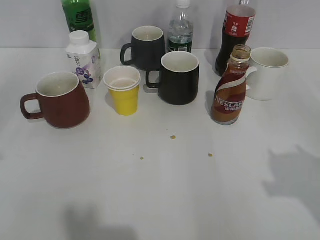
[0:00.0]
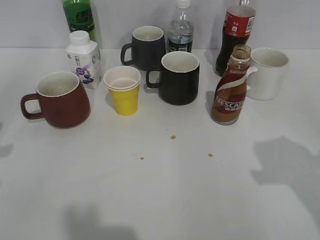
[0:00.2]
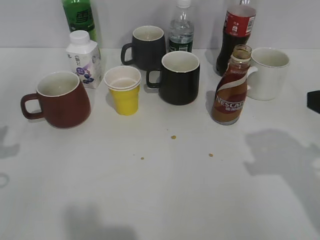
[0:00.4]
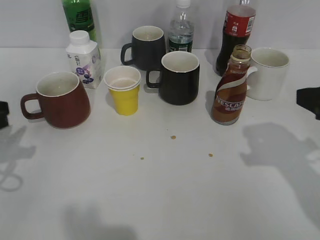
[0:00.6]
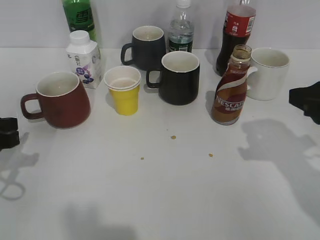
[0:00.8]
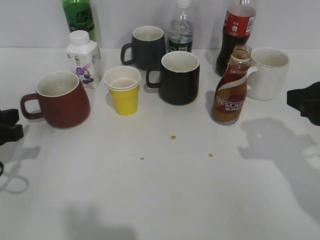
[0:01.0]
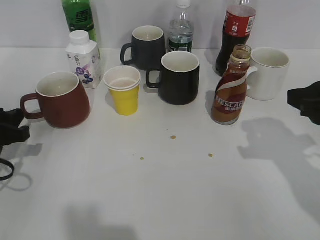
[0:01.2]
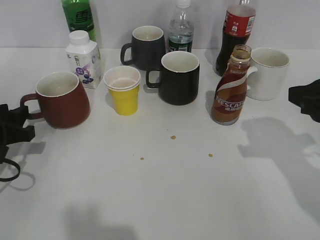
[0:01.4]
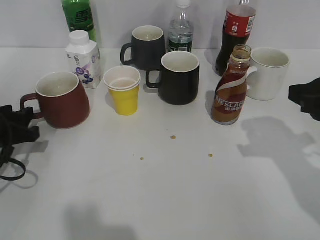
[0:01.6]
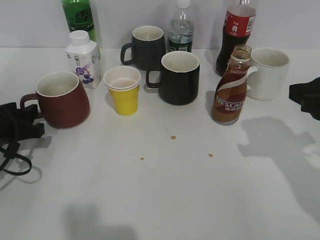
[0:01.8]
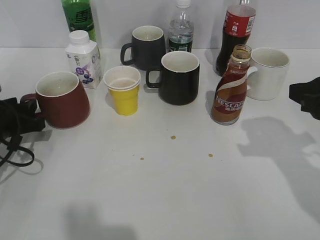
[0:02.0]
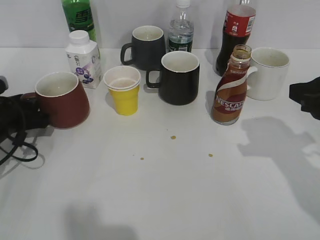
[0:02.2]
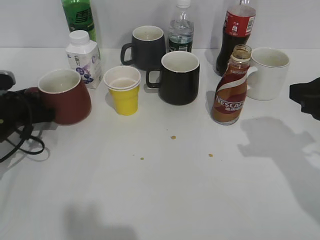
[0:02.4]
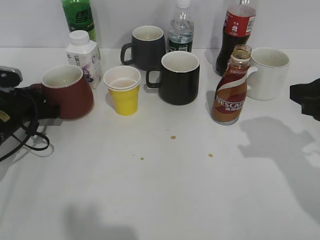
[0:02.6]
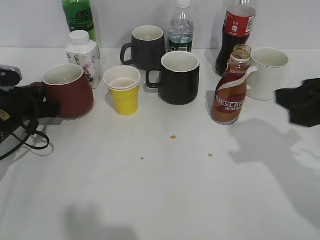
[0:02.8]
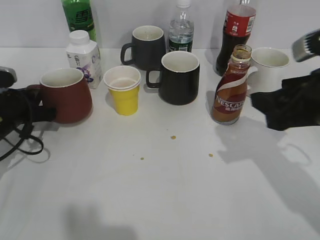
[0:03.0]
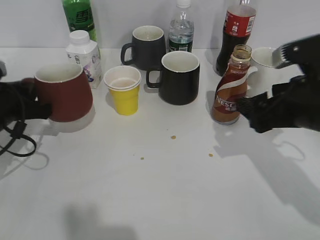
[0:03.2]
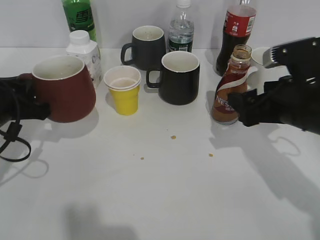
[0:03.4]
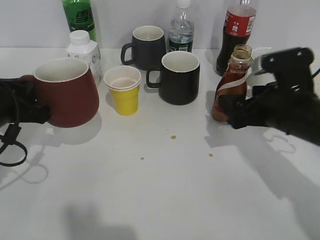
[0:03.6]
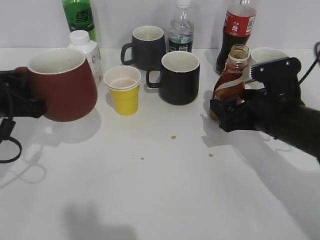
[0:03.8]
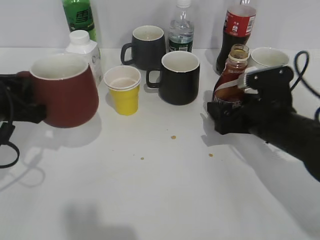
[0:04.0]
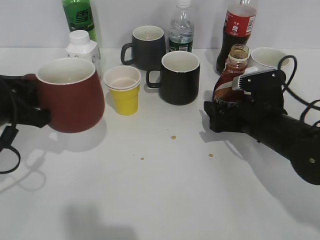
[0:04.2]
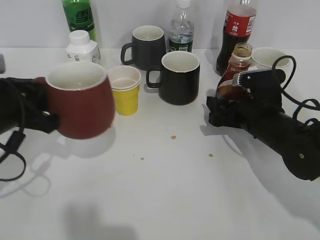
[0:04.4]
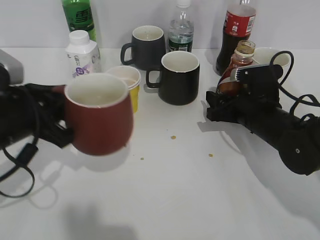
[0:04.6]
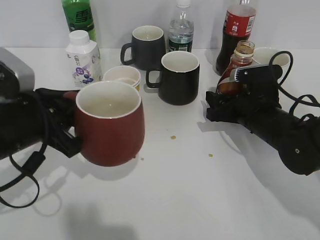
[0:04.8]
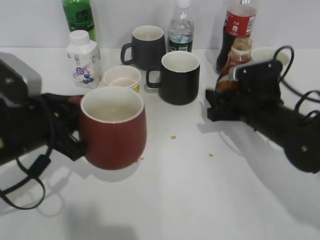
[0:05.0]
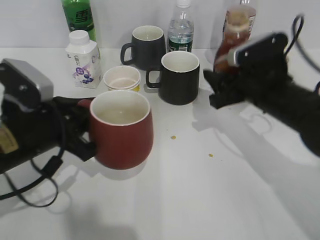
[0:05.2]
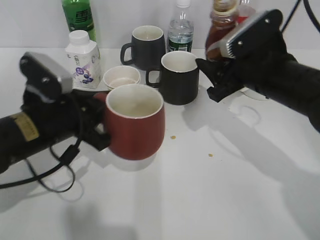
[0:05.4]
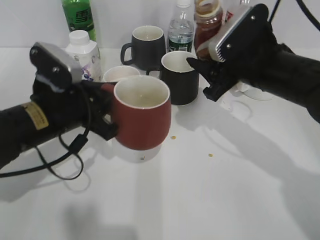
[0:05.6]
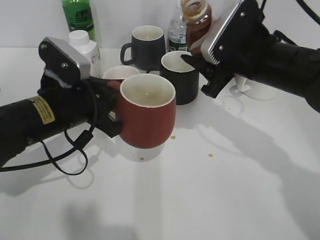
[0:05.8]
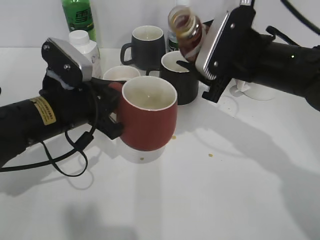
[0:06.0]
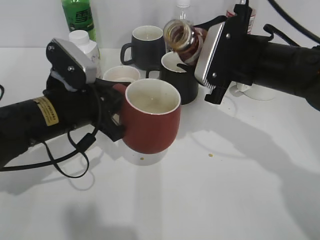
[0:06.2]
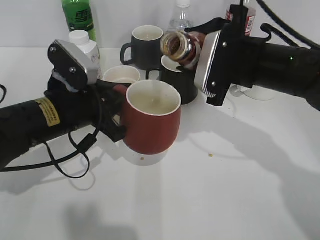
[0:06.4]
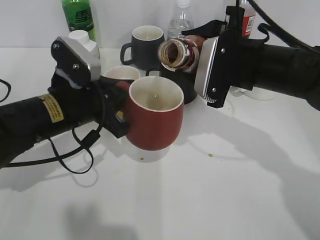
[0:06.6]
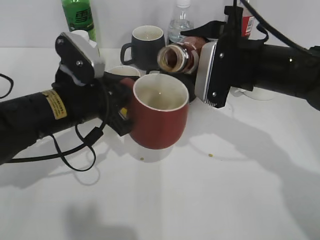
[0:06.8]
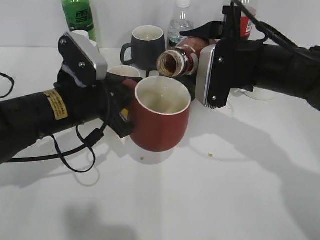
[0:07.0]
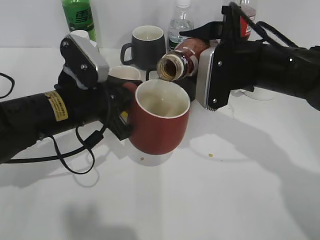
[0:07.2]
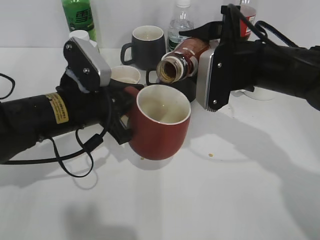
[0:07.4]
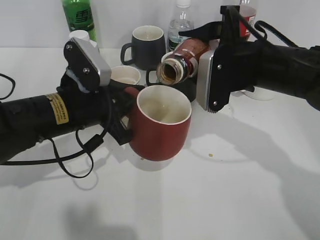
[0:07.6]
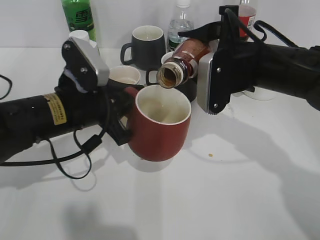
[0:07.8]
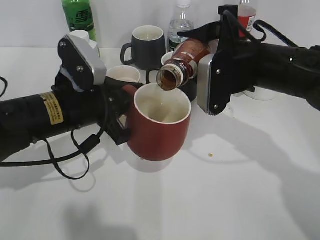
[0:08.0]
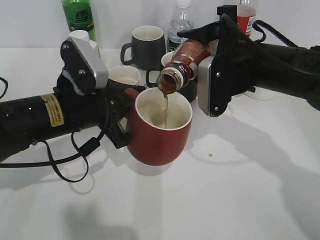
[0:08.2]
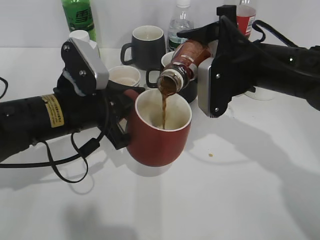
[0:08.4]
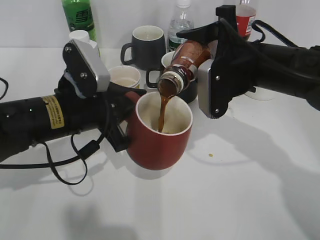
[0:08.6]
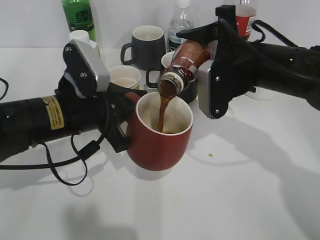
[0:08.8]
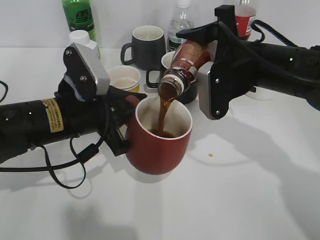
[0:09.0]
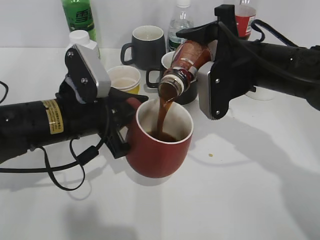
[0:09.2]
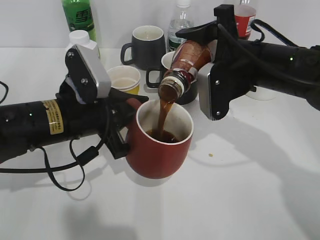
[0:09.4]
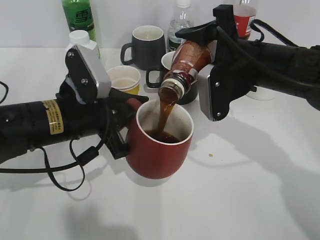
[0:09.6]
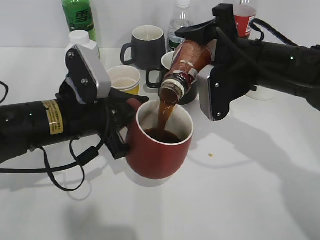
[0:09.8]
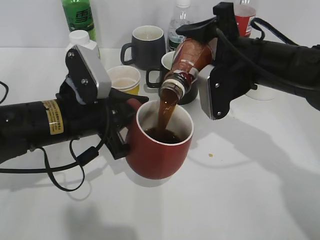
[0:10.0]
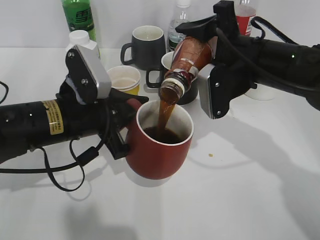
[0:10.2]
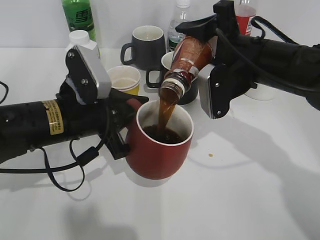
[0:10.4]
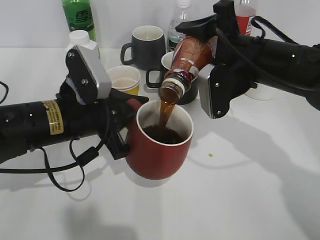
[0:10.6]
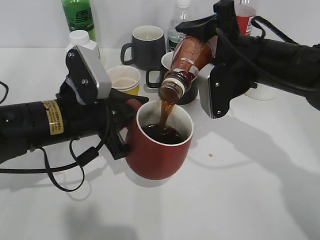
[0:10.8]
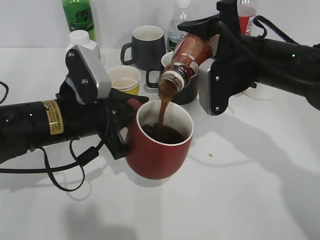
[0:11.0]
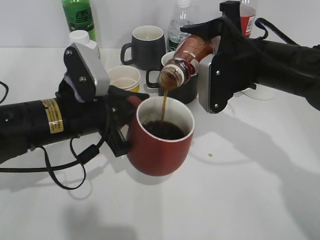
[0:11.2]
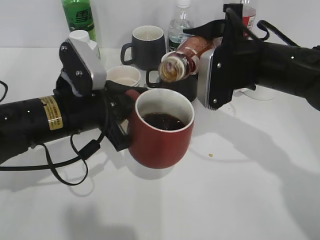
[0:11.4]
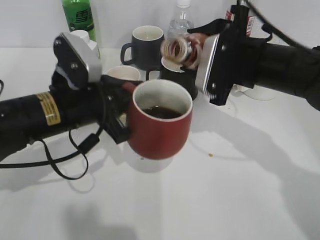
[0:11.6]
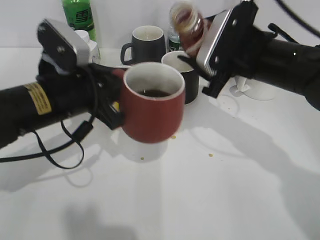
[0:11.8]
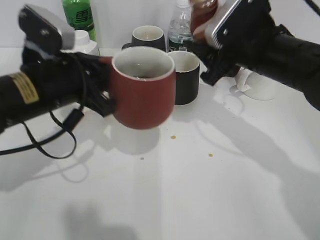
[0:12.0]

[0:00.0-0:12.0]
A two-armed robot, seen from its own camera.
Step, 0.0 to 2.6 s: Grasp the red cup with left gripper.
Step, 2.8 to 4.6 s: Grasp the bottle with coffee with right gripper.
Step, 4.8 to 11.6 s: Pour the coffee from bottle to cup with right gripper.
0.0 to 1.6 s: The left gripper heads downward and forward, covering some 20 cm, and opens its fingers, while the right gripper heads forward and downward, covering some 10 cm.
1.6 to 3.0 s: The right gripper opens its fingers; the left gripper travels forward by roughly 5 cm, and closes up.
3.0 to 4.4 s: The right gripper is displaced downward and forward by some 15 cm. Meanwhile the left gripper travels backward and upward by about 10 cm.
4.4 to 6.0 s: The right gripper goes about 10 cm upward. Meanwhile the left gripper shifts some 10 cm to the right.
7.6 to 9.0 s: There are only small adjustments of the grippers.
9.0 to 10.4 s: The grippers stay close to where they were, moving slightly.
10.4 to 12.0 s: The left gripper shifts by roughly 5 cm.

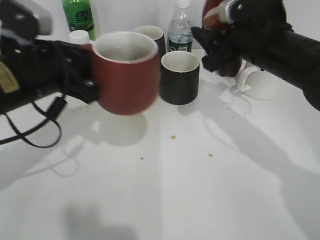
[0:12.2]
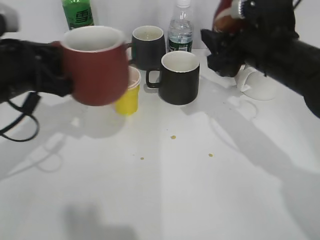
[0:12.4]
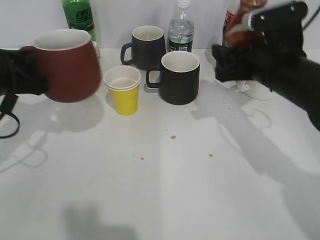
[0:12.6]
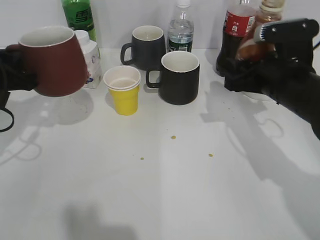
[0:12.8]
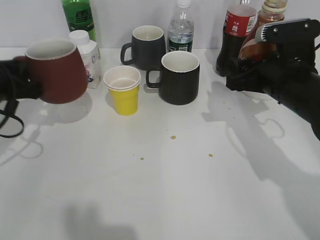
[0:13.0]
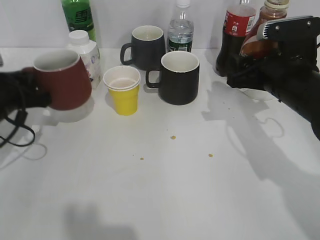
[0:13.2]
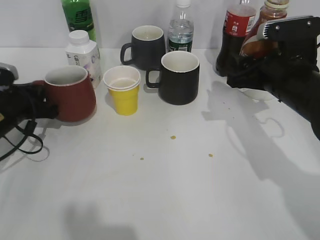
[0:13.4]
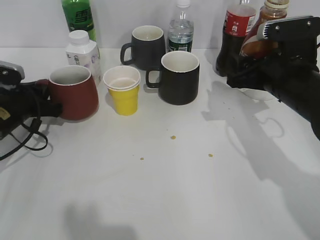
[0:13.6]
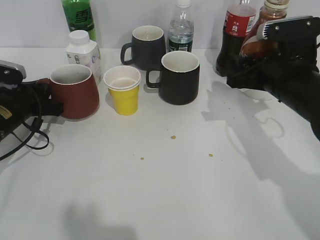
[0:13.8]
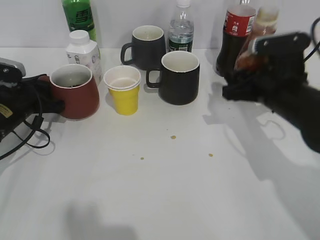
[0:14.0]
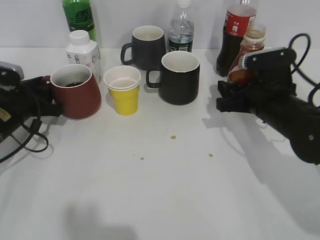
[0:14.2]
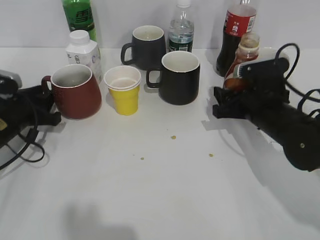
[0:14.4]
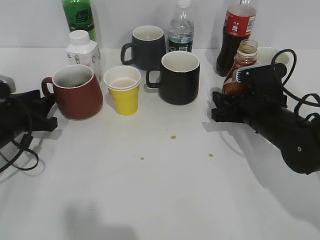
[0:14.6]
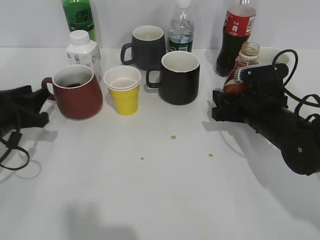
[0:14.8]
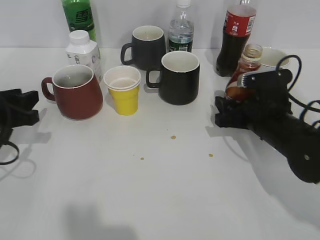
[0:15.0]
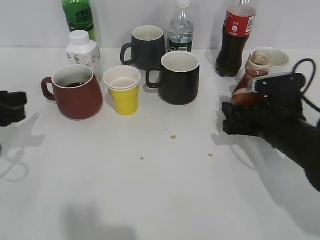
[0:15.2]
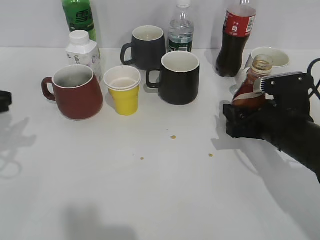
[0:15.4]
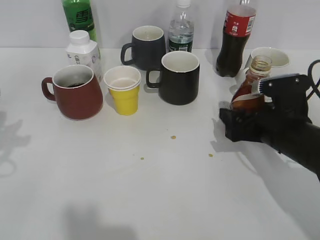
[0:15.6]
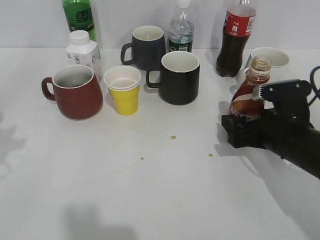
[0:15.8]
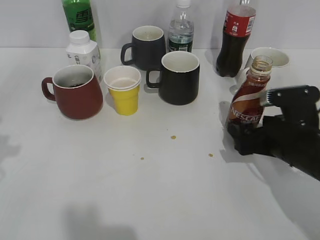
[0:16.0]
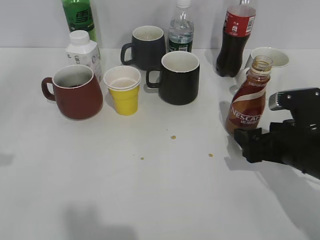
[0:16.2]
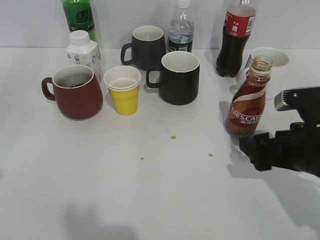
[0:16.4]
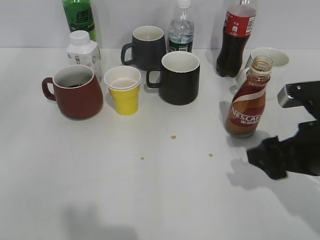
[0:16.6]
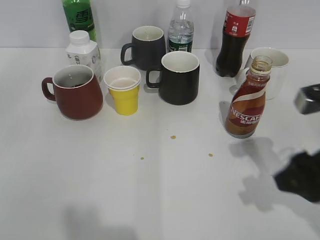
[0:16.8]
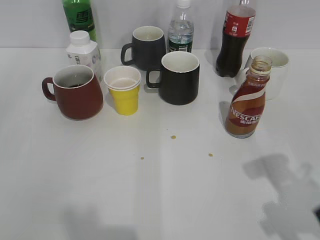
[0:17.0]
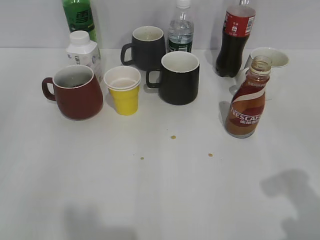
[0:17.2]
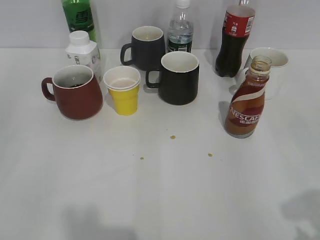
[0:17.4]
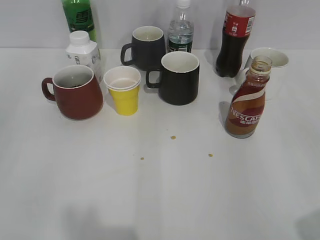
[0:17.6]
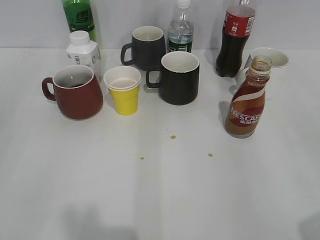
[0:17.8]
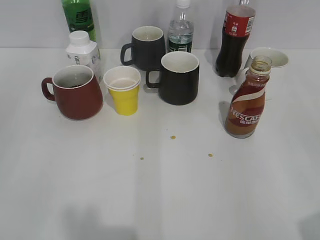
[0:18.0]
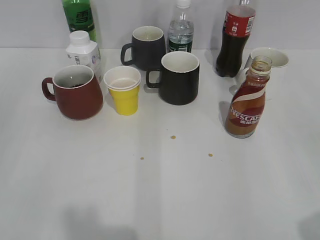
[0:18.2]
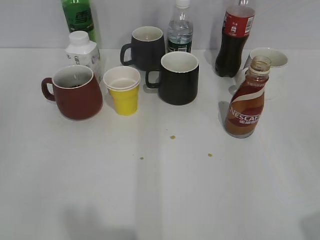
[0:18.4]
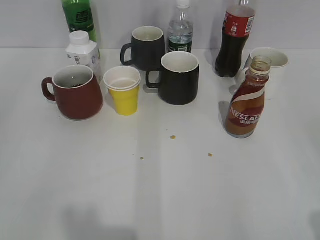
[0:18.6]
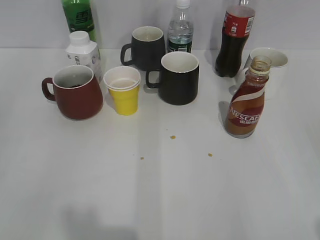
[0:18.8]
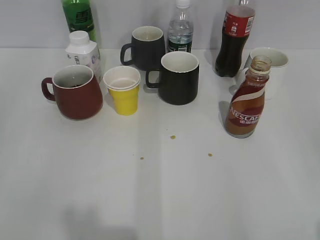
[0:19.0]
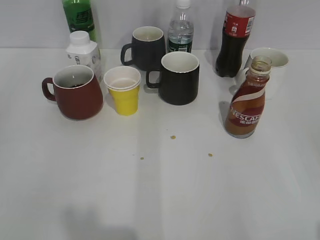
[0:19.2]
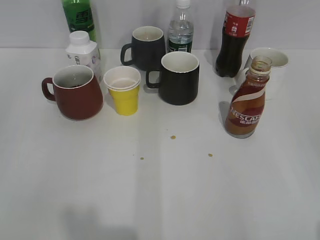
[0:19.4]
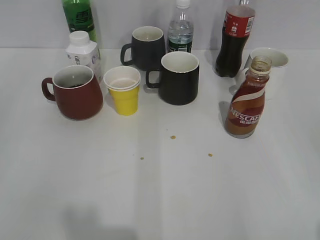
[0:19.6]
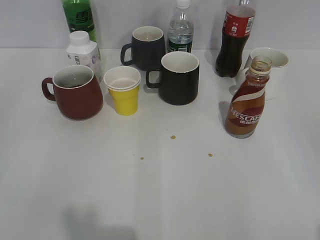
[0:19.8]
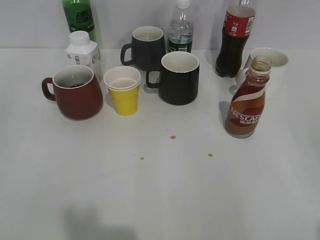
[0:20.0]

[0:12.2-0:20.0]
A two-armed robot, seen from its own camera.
Step, 12.2 to 13.8 s: Place the red cup on the table with left gripper.
Step, 14.0 to 16.0 s: Place the coffee bottle on the table with right gripper.
12.2 to 13.8 s: The right gripper changes place by approximately 5 cm. Meanwhile the left gripper moves downward, to the left and forward, roughly 15 cm.
13.8 to 15.4 s: The left gripper heads upward and backward, covering approximately 15 cm, and opens; the right gripper shifts roughly 5 cm downward.
15.4 to 16.8 s: The right gripper heads backward and upward, covering about 15 cm.
16.8 to 18.4 s: The right gripper heads backward and to the right, covering approximately 15 cm. Meanwhile the left gripper moves roughly 5 cm.

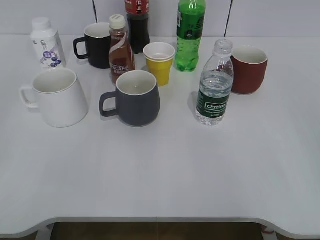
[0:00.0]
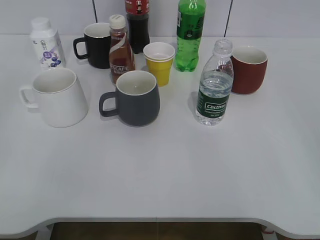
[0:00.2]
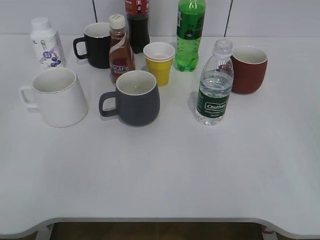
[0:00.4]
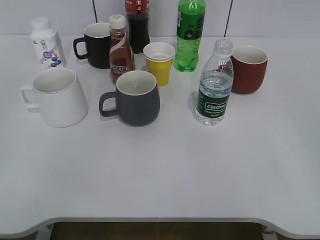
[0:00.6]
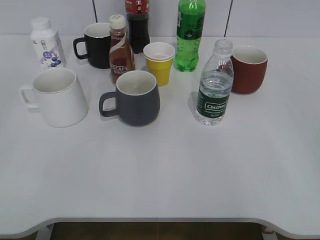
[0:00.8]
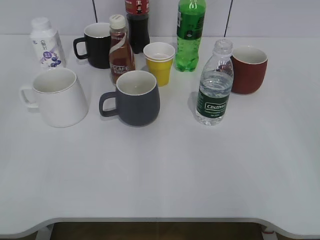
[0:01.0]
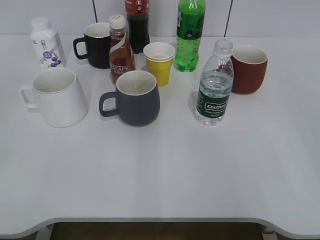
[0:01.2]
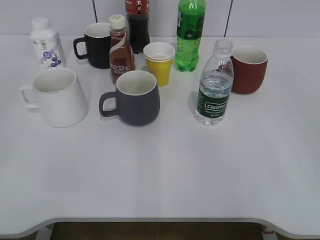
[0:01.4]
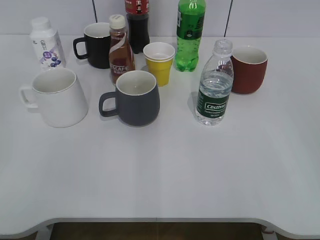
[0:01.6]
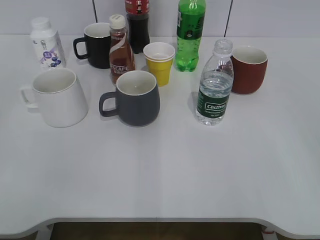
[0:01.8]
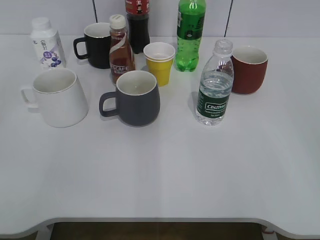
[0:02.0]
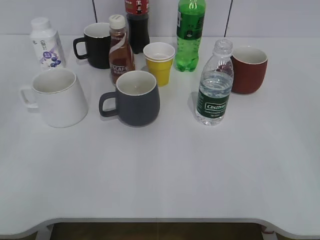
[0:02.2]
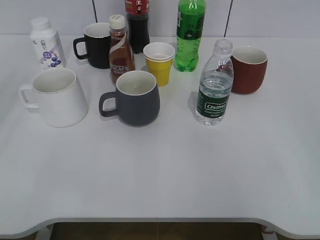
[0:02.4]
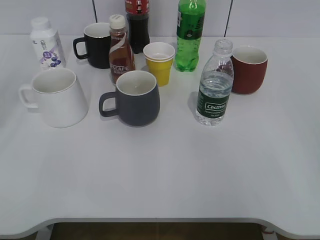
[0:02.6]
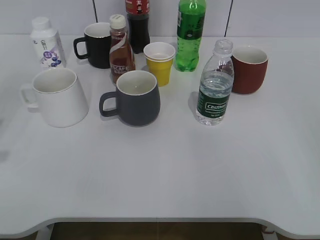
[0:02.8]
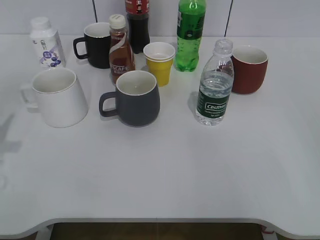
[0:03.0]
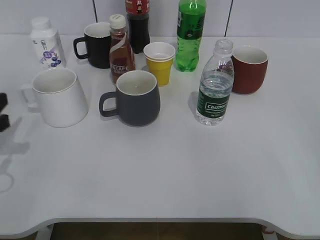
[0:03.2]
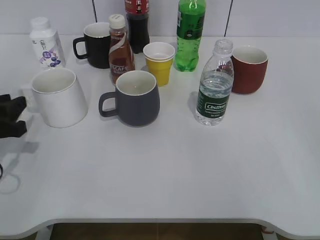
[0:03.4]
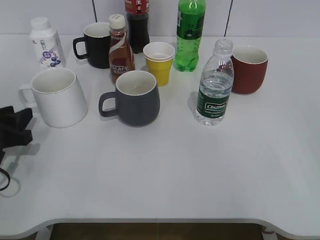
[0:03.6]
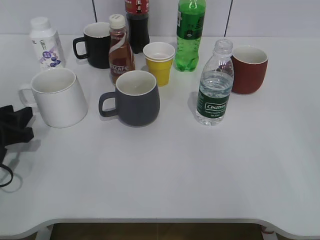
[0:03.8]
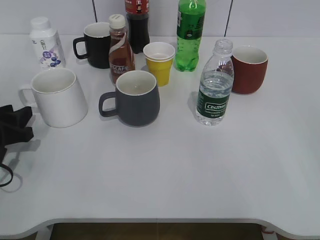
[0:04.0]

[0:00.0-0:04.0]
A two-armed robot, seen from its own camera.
2.6 to 4.0 s: The left gripper heads downward and forward, covering about 25 cm.
